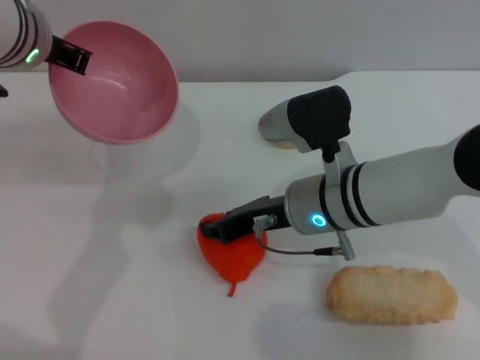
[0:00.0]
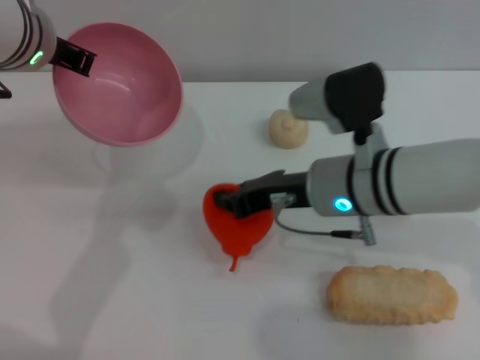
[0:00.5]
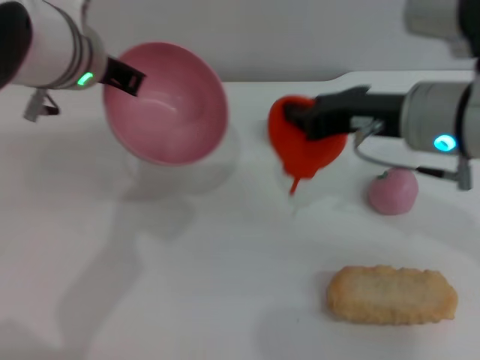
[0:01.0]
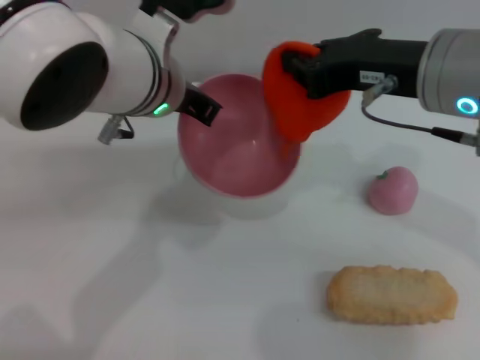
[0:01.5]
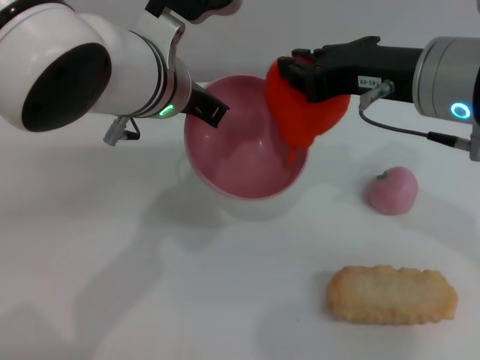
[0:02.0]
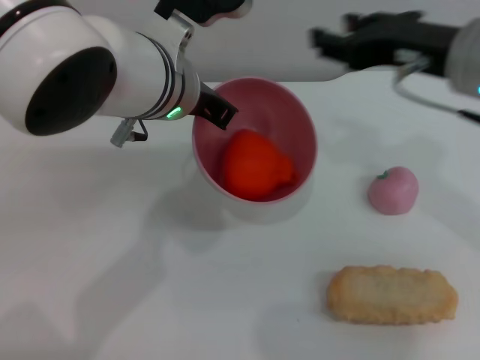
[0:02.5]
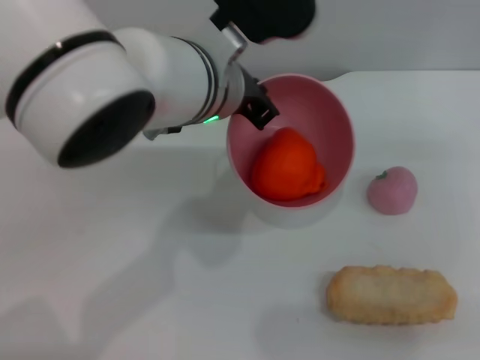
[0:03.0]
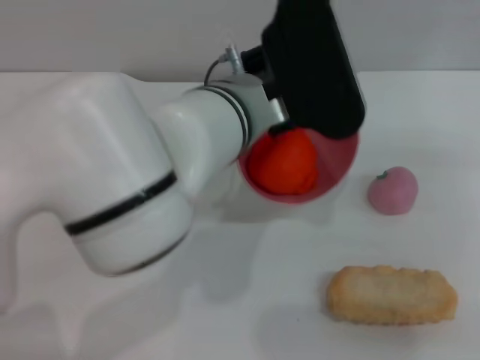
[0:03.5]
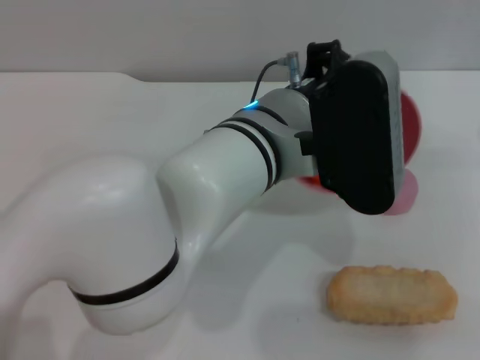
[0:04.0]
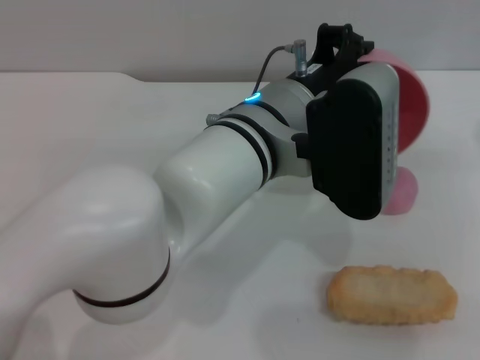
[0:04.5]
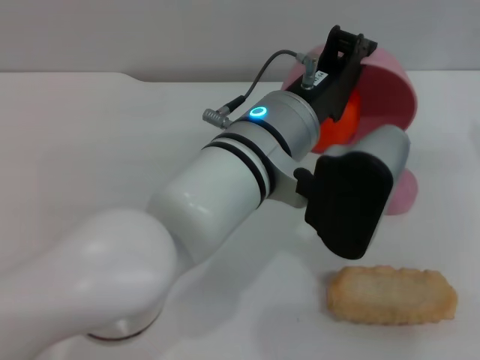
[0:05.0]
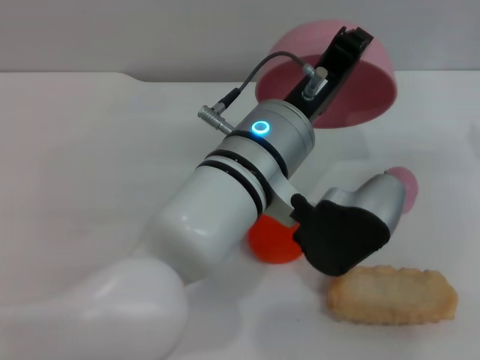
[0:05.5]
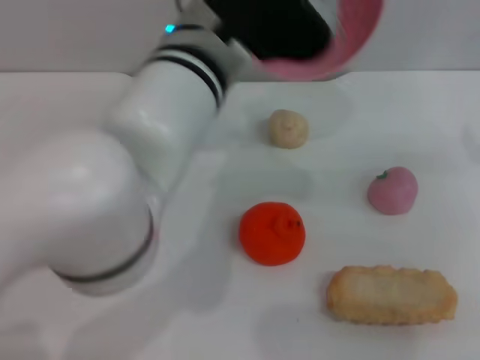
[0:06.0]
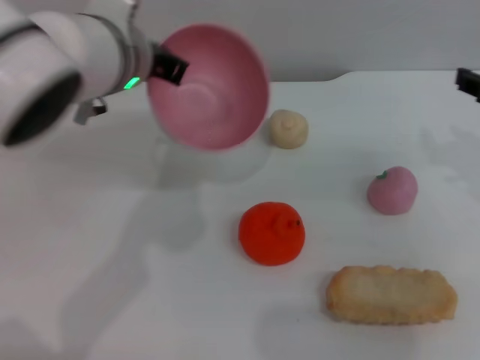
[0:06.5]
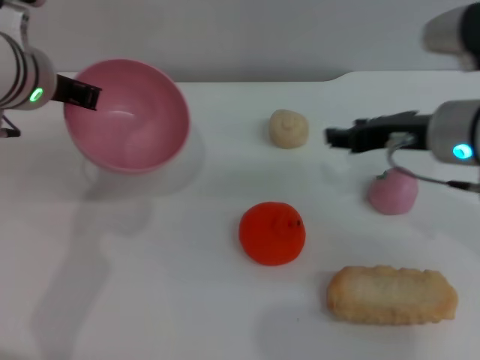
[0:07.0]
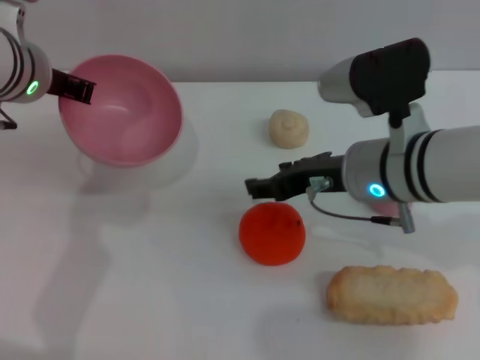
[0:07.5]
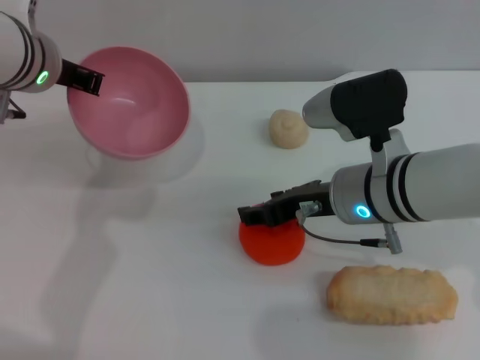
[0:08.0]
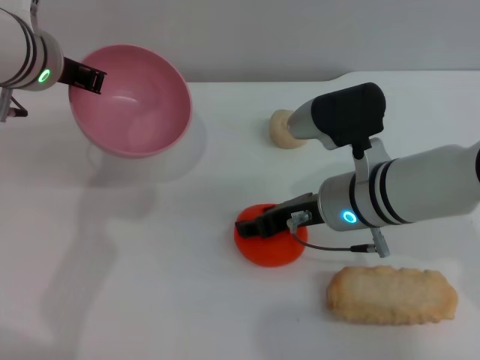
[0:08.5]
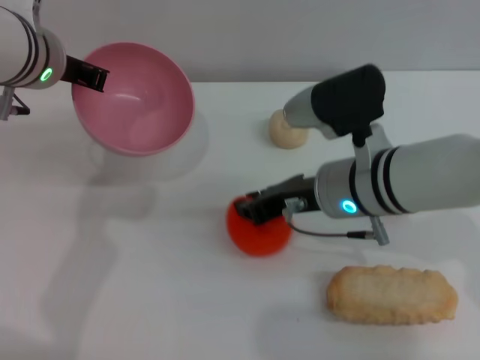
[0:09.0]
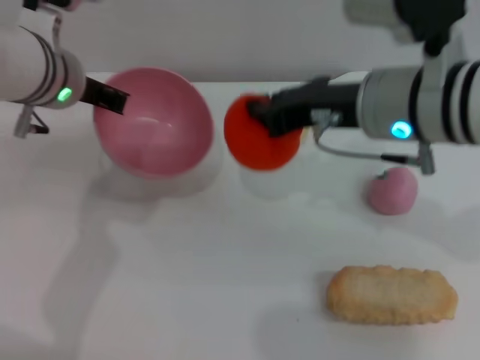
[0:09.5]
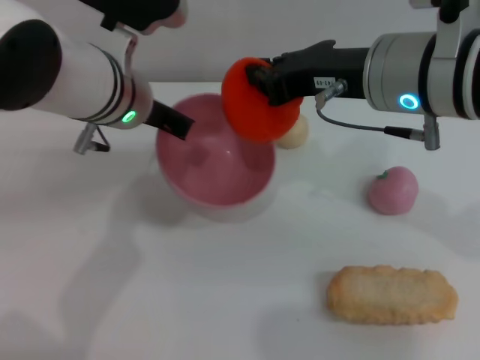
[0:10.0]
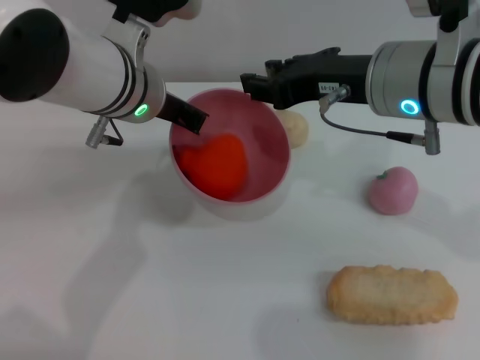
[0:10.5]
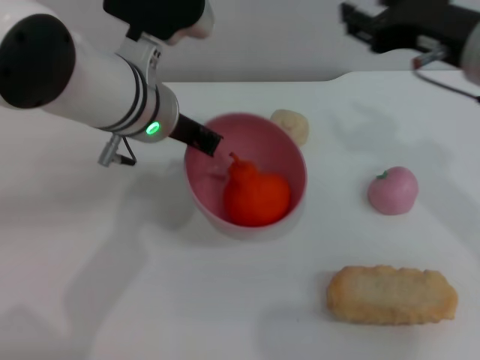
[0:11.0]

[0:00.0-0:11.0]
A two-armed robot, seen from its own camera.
Task of the whole recording: put the orange into the pink bowl and pour it out repeatedly.
Step, 0:01.0 to 0:02.0: Place the orange into the bowl.
Step, 0:02.5 to 0:05.5: Pour the orange out of the bowl.
Step, 0:06.0 to 0:09.0: Pick up the orange with the right gripper.
0:00.0 to 0:02.0: The right gripper moves upward and to the right, some 15 cm; the left gripper travels to the right by some 10 cm.
0:02.0 to 0:03.5: The left gripper shifts about 5 cm to the right. Meanwhile the right gripper moves to the right, approximately 20 cm, and opens its fingers.
0:05.5 to 0:07.5: The left gripper moves to the left and forward, about 20 cm. The right gripper moves to the left, some 20 cm.
0:07.5 to 0:09.0: The right gripper closes.
0:09.0 to 0:11.0: The right gripper travels upward and to the right by approximately 15 cm, and closes, then reopens. Meanwhile the left gripper travels to the right by about 10 cm.

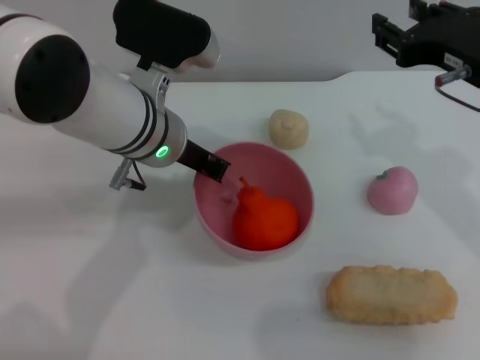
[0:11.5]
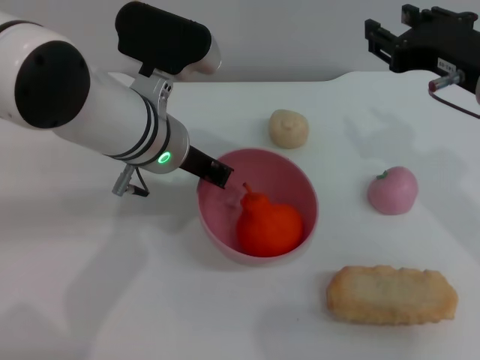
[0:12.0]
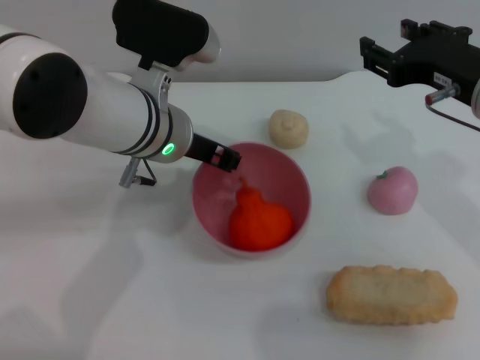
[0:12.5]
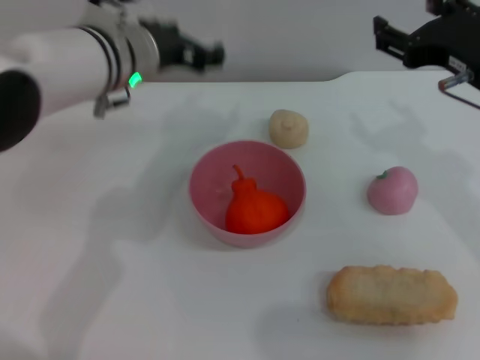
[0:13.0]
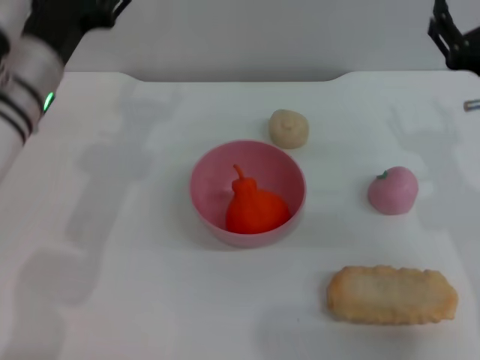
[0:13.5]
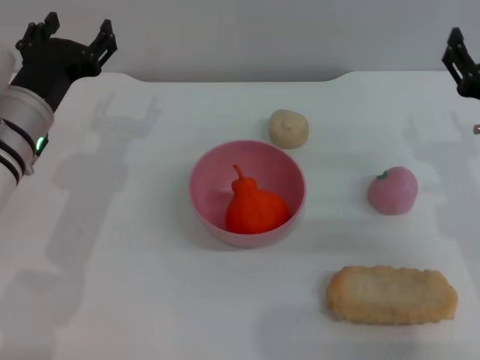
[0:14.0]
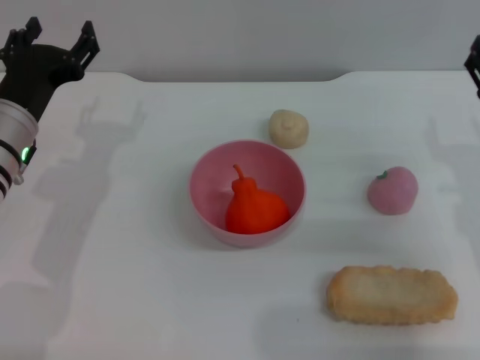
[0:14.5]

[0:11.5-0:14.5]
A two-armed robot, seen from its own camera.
Task of the whole recording: put the orange into the pink bowl and pour it out repeatedly.
Step, 0:11.5 to 0:12.5: Place the bowl on the table.
0:11.5 to 0:13.0: The left gripper opens its fingers.
0:13.0 to 0:14.5: The right gripper heads downward, covering approximately 10 cm, while the left gripper goes about 15 cm to the left and downward.

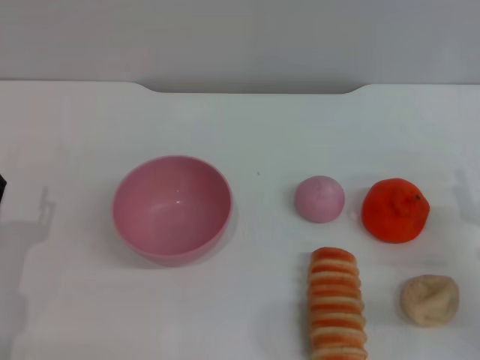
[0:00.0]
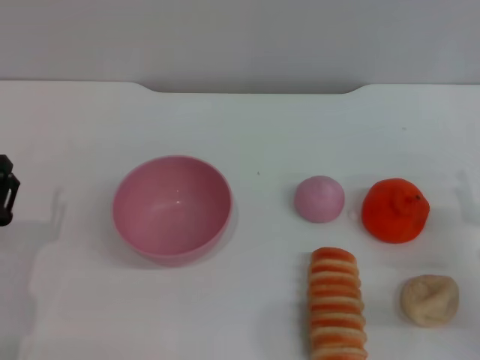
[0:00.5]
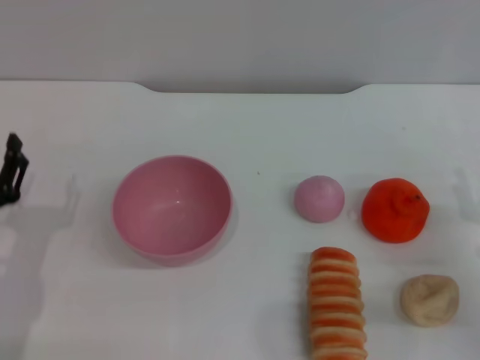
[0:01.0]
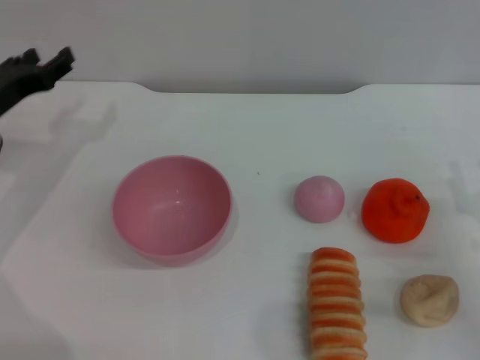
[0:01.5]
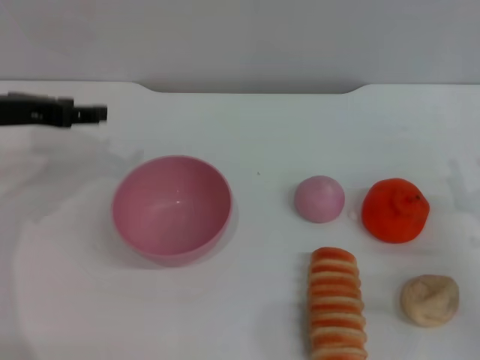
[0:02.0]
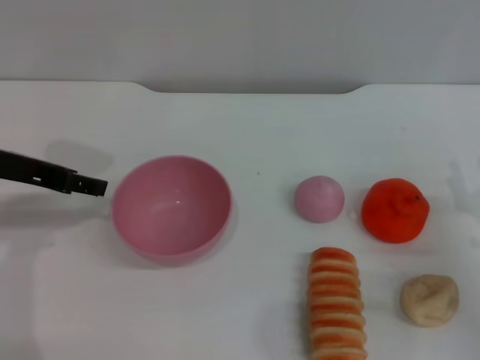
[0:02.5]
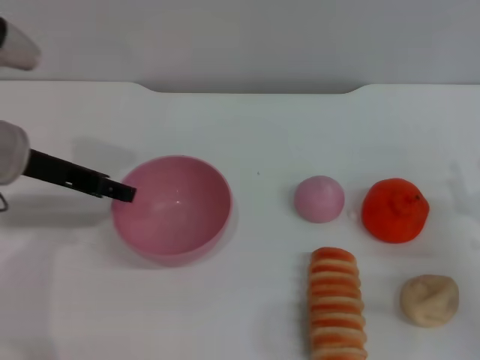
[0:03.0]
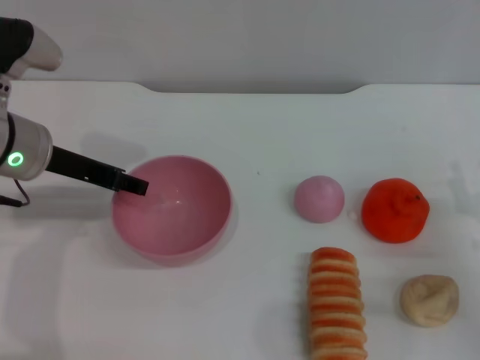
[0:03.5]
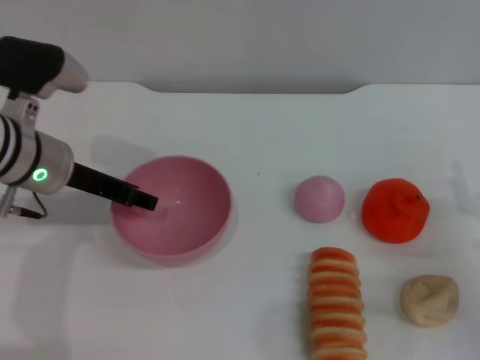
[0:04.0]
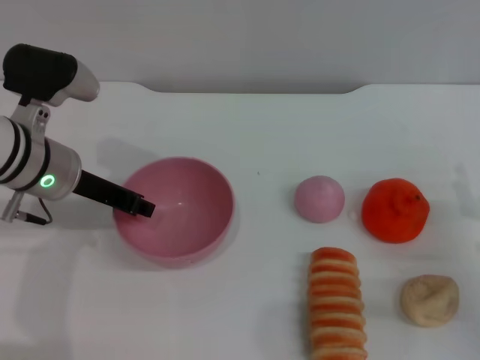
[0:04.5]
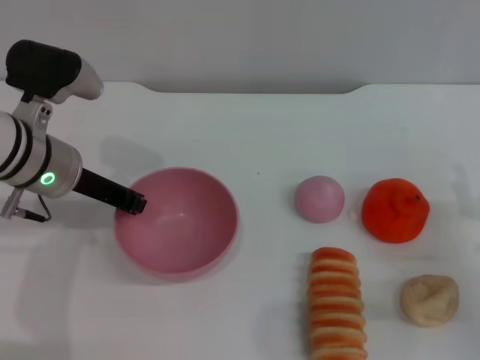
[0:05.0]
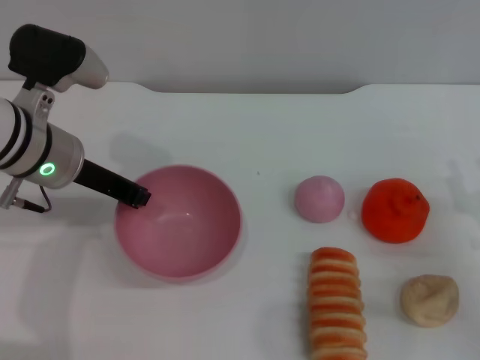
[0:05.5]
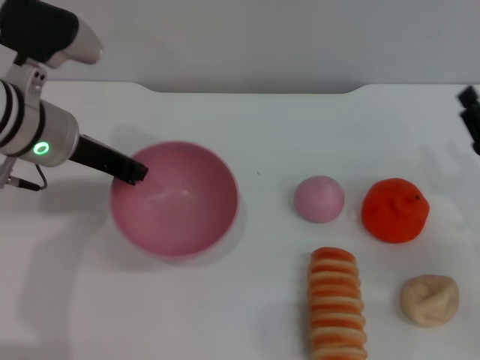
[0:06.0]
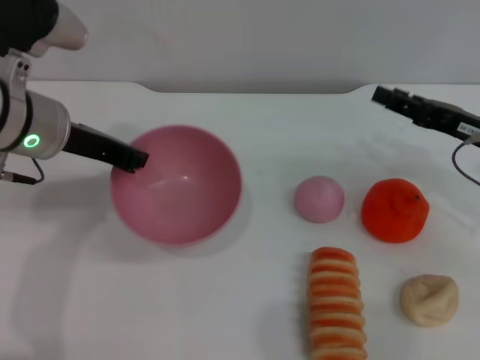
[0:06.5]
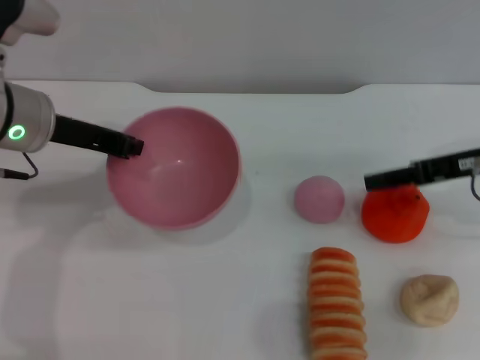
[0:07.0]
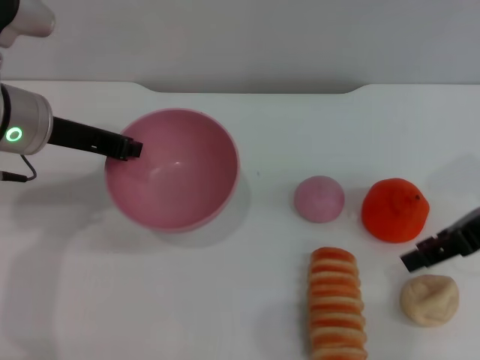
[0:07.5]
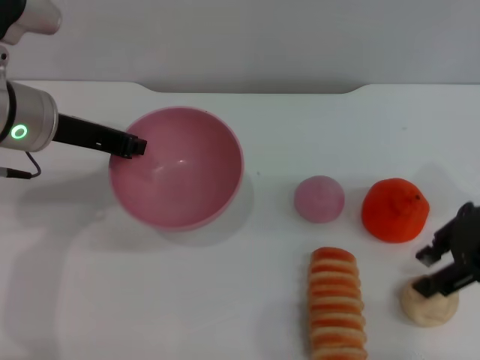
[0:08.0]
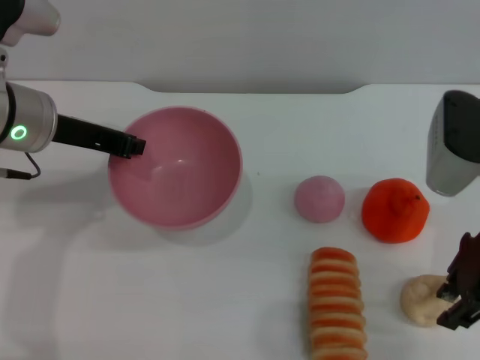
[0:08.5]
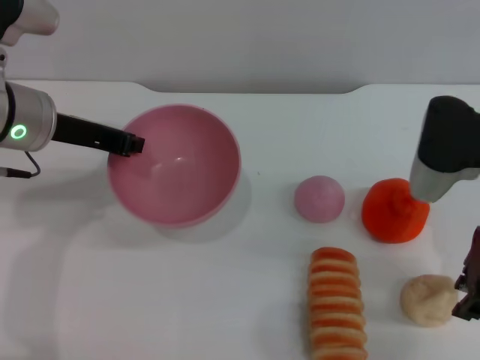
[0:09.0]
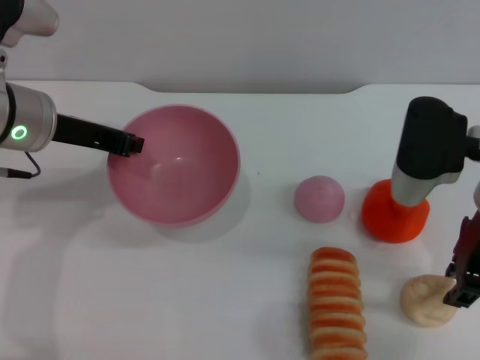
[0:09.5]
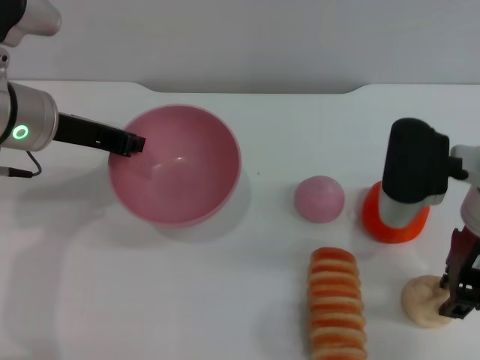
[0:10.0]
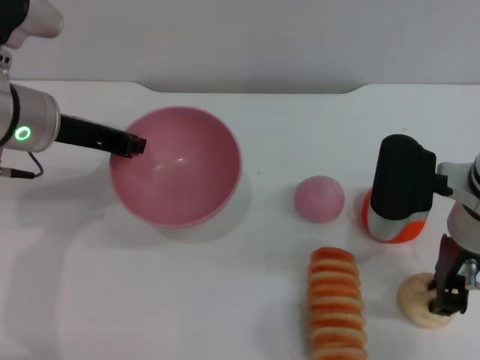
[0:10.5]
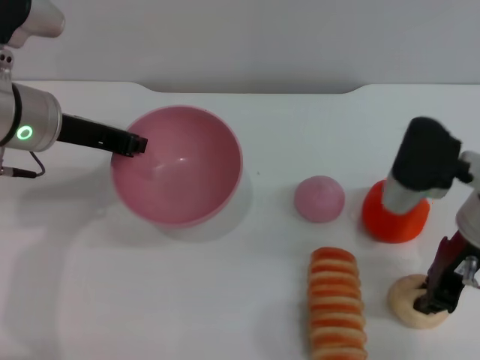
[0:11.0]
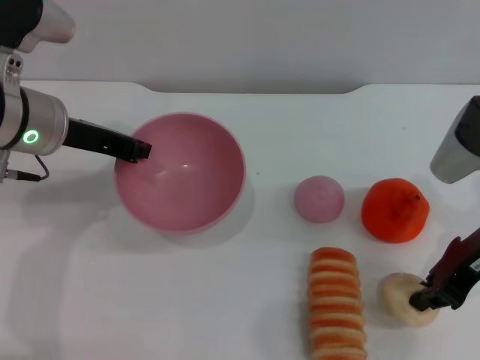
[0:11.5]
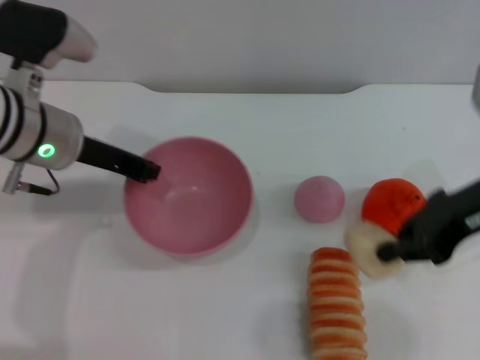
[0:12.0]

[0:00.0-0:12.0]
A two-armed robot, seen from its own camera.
Task of the whole recording: put the egg yolk pastry into the pink bowl and pour it out repeatedly.
Step, 0:00.0 to 0:06.5: Pick up the bowl with the left gripper.
Step, 0:07.0 to 0:12.0: Pick up the egg yolk pastry with the right gripper.
0:00.0 to 0:02.0: The left gripper shifts about 20 cm forward and upward.
0:02.0 to 0:04.0: The left gripper shifts some 5 cm to the right.
0:04.0 to 0:06.0: The left gripper closes up.
0:06.0 to 0:08.0: The right gripper shifts approximately 15 cm upward.
0:08.0 to 0:10.0: The right gripper shifts about 5 cm to the left.
0:10.0 to 0:12.0: The right gripper moves some 5 cm, and closes.
